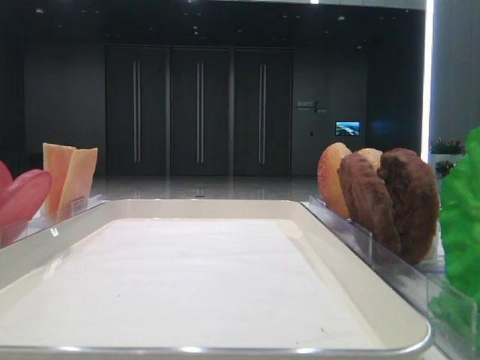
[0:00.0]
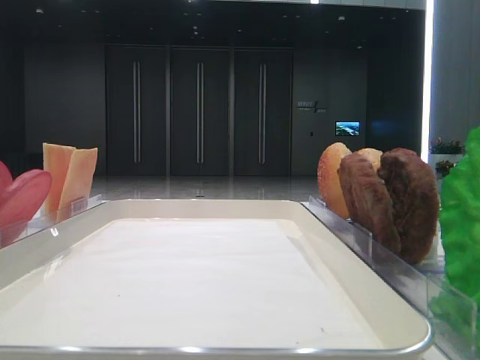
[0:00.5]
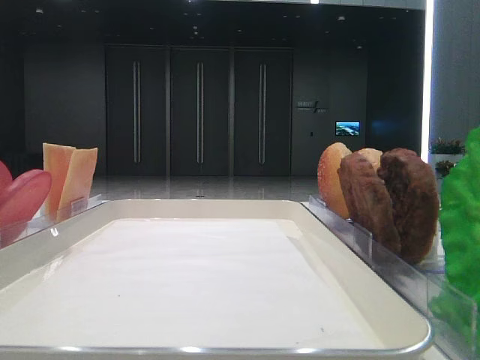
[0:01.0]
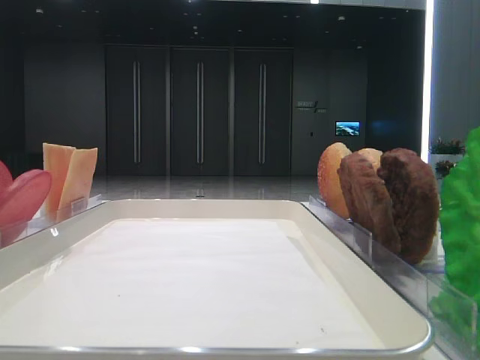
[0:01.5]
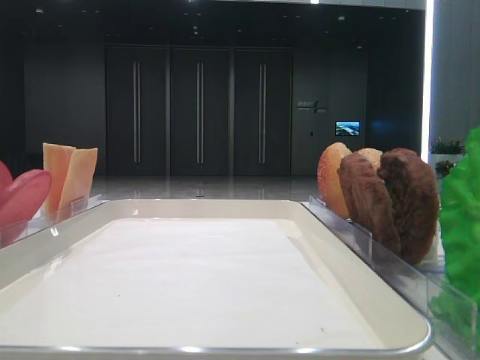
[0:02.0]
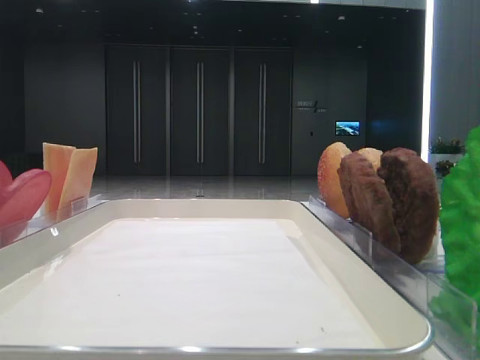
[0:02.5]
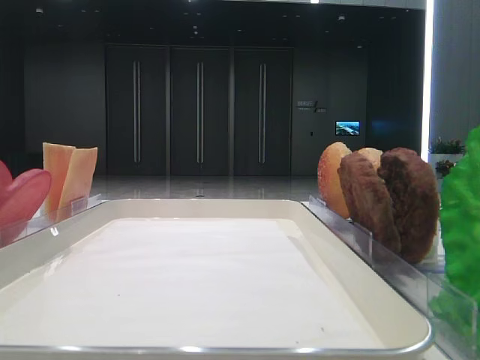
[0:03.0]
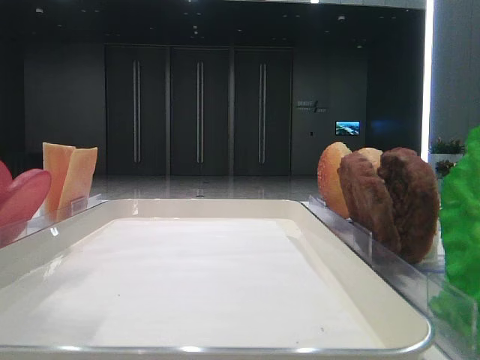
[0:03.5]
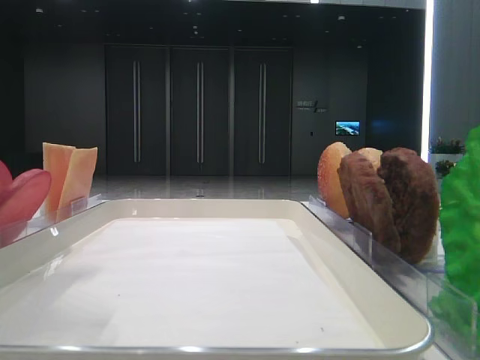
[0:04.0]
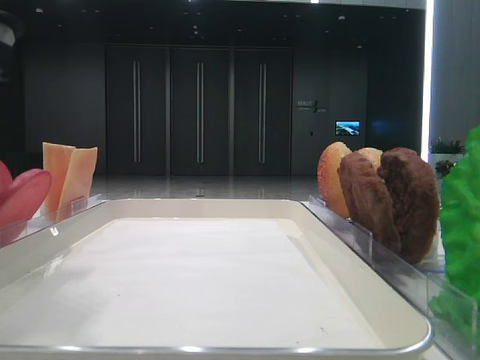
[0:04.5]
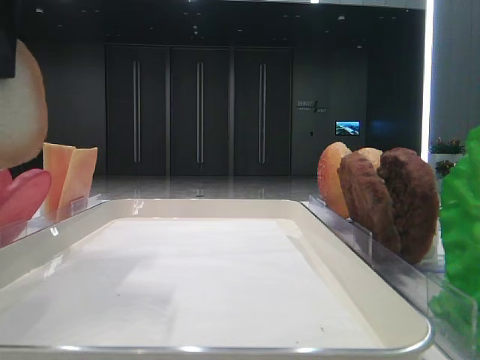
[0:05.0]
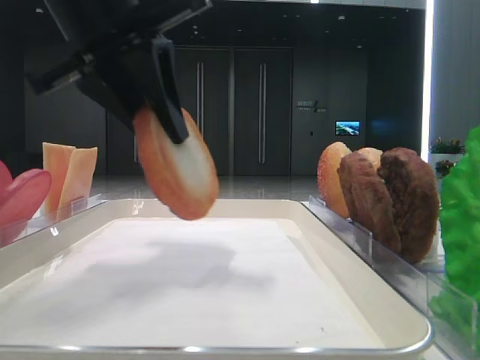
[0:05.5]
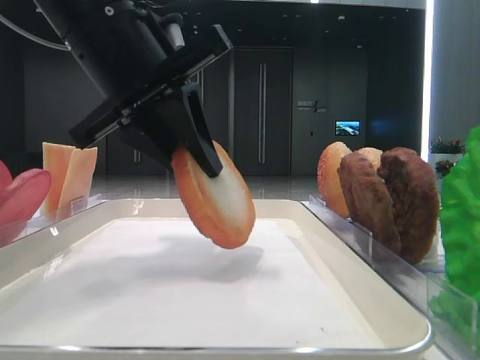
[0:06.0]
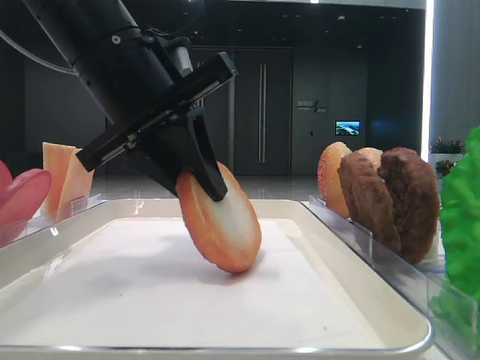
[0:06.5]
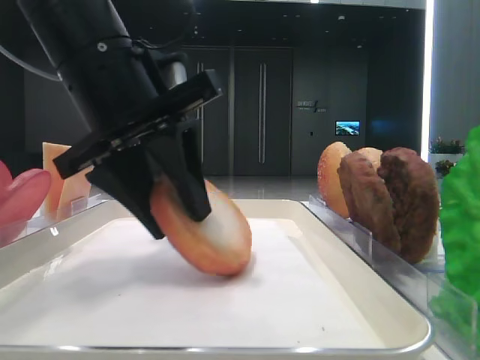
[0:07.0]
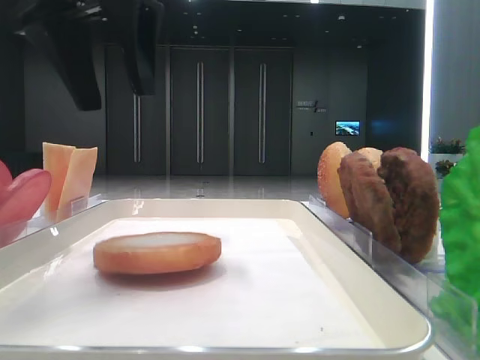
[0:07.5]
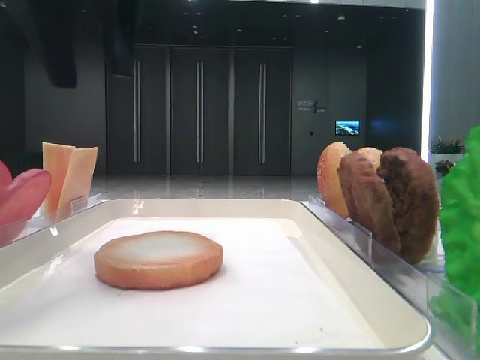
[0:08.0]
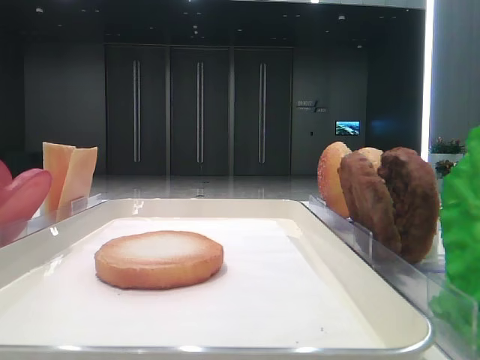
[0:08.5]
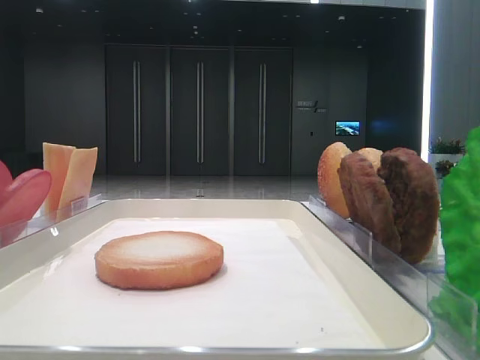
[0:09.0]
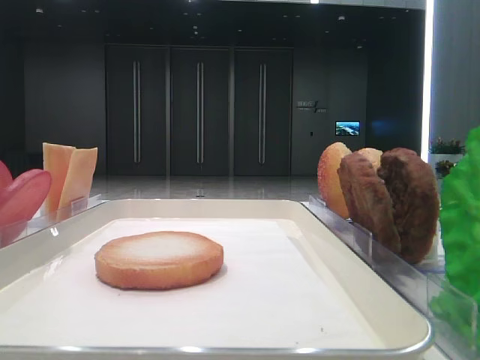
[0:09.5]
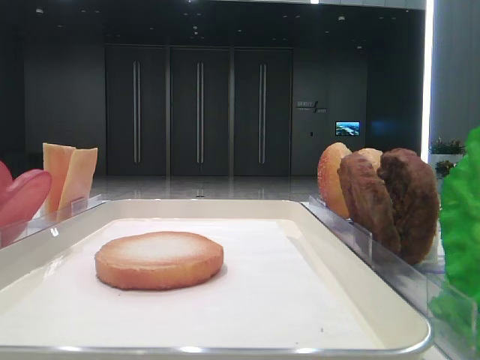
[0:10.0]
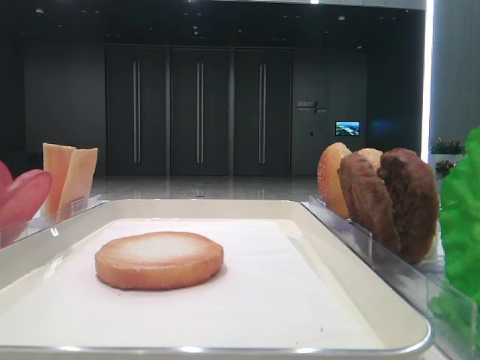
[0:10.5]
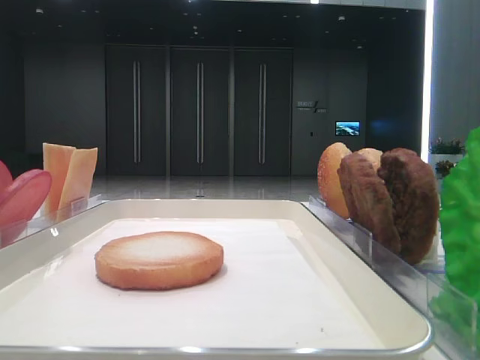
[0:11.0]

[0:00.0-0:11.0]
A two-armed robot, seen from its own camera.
Step, 0:00.0 to 0:04.5: Pick up the bottom bread with the left hand.
Step, 0:05.0 to 0:07.0: Place the bread on the tray with the left hand.
0:02.0 to 0:03.5: The left gripper shifts approximately 20 cm forward and to the right.
0:03.5 to 0:05.5: The left gripper heads to the right and forward, covering roughly 15 cm, and closes.
0:05.5 to 0:07.5: The left gripper heads upward, covering about 5 cm, and opens.
0:07.5 to 0:09.0: The left gripper goes roughly 25 cm to the left and backward.

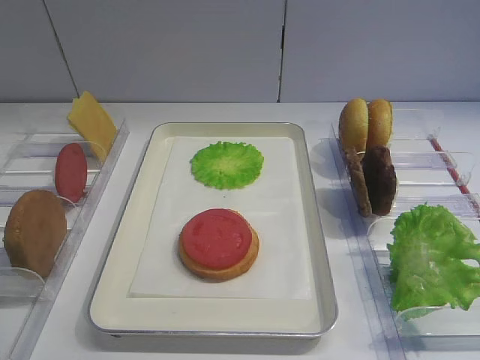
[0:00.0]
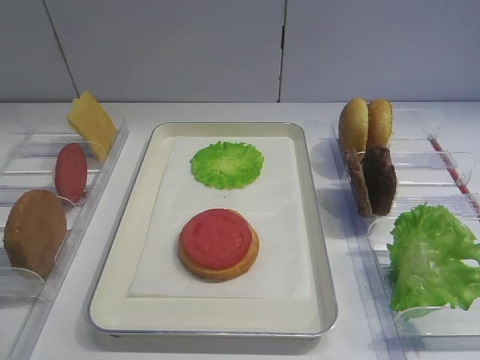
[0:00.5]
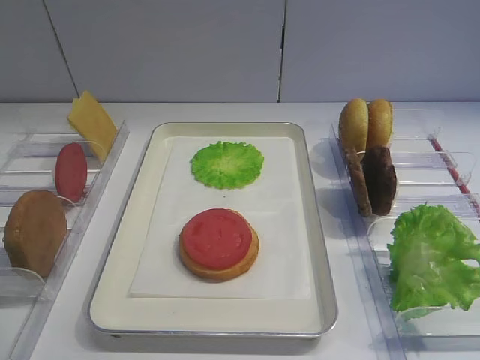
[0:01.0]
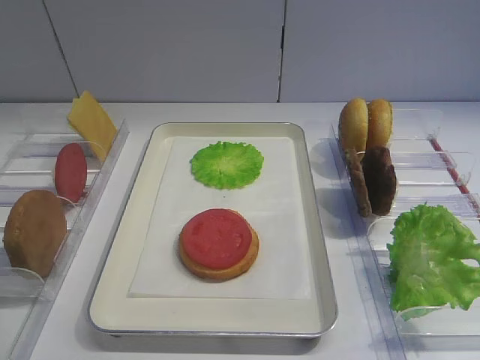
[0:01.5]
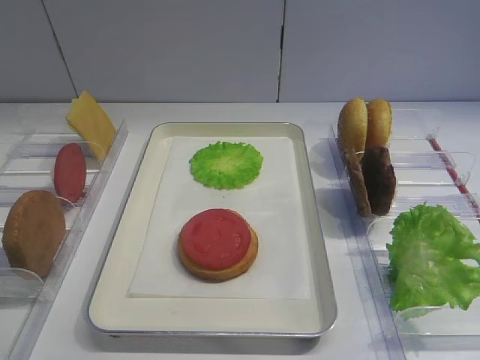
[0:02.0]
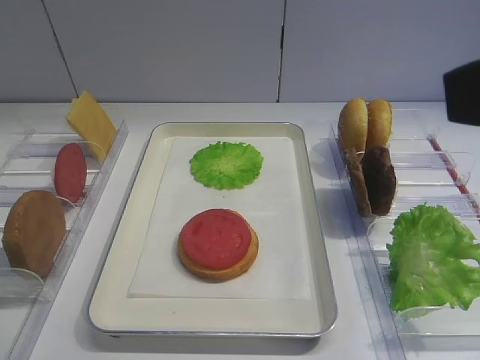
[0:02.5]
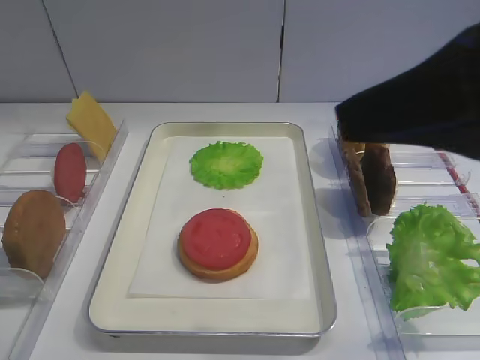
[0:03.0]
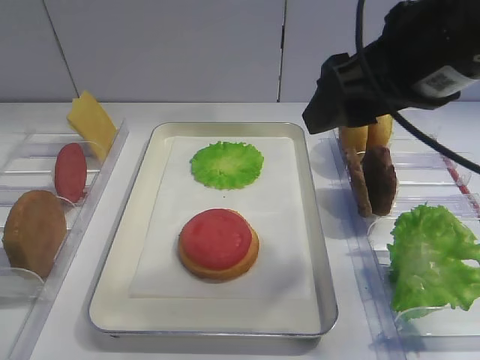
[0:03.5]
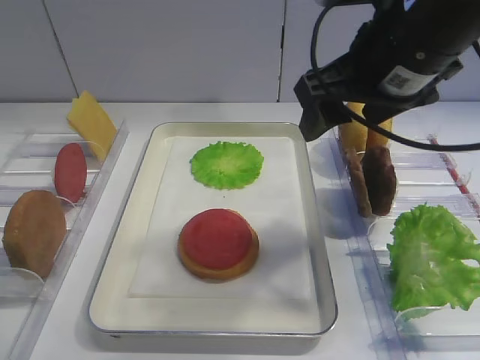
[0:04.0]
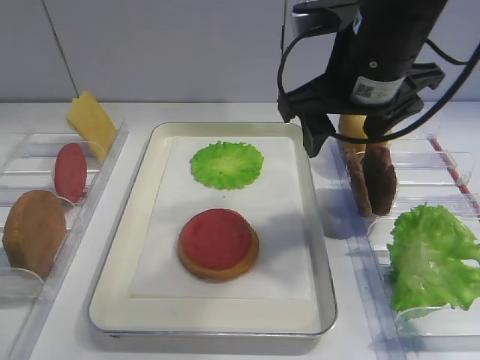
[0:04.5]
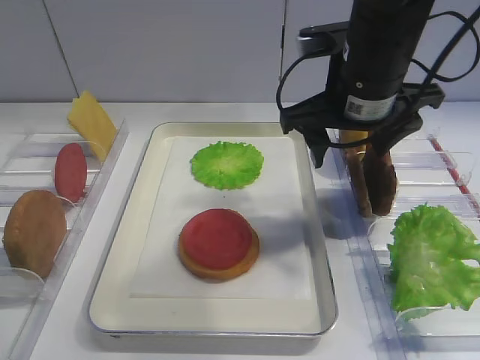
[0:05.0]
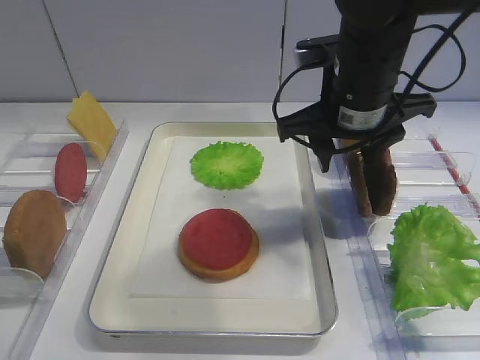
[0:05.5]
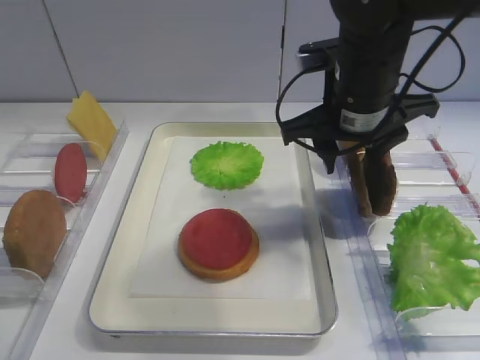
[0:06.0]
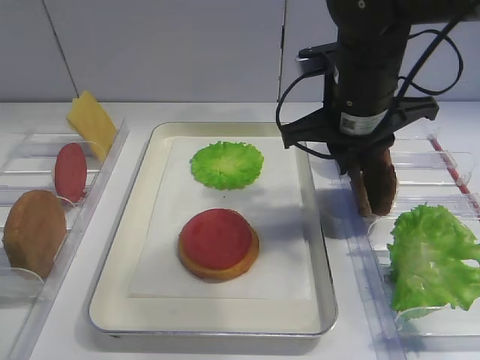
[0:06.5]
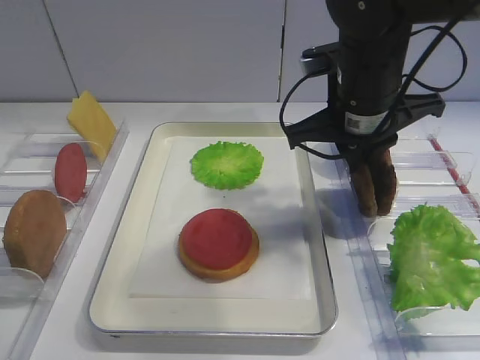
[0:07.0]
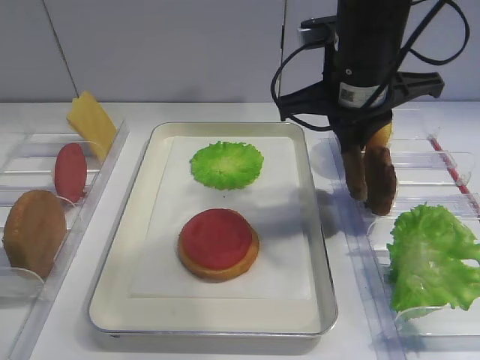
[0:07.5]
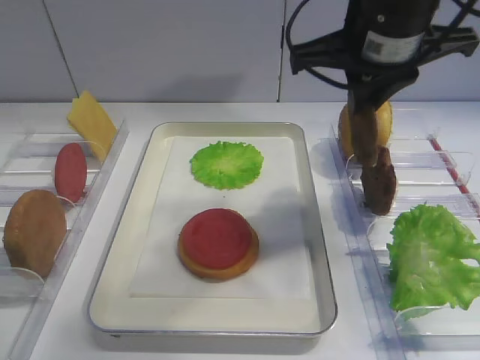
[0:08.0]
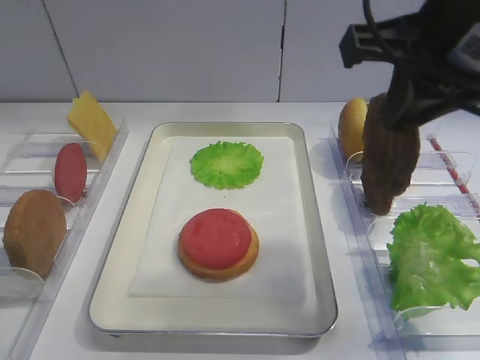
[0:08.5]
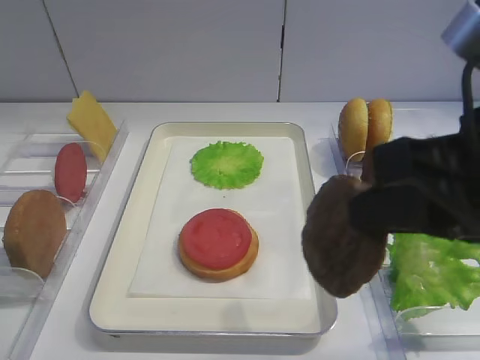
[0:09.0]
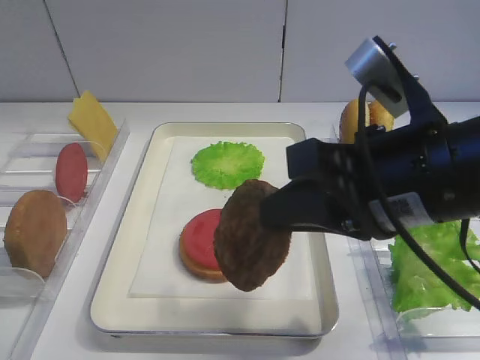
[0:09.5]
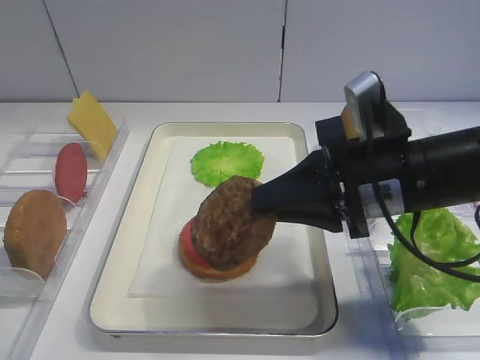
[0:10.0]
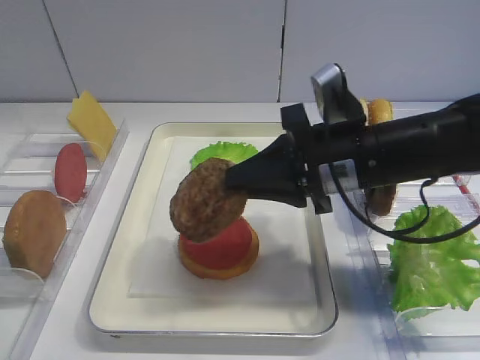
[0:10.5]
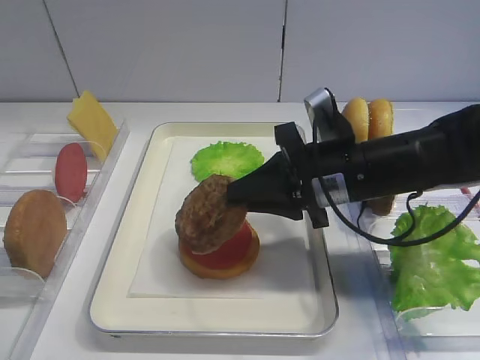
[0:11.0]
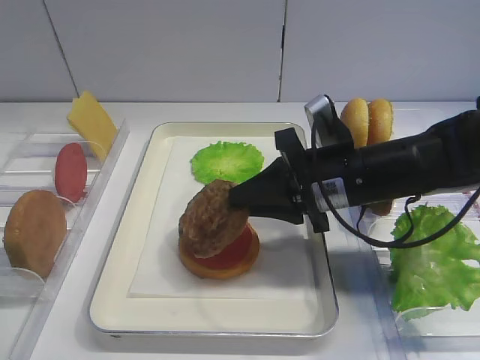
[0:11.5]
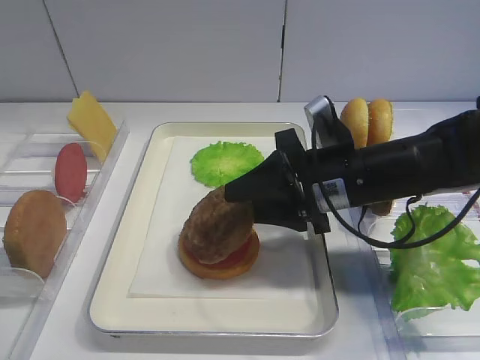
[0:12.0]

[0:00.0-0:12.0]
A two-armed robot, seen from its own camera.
Step, 0:00.0 to 0:07.5: Pick up the cutlet with the right gripper.
0:02.0 to 0:04.0: The right gripper is displaced forward by approximately 20 cm.
0:04.0 to 0:06.0: The right gripper is displaced downward and forward by about 10 cm.
0:06.0 to 0:08.0: The right gripper travels upward by some 10 cm, and closes up.
0:08.0 to 0:10.0: The right gripper travels downward and backward by about 15 cm.
0:10.0 to 0:12.0: The right gripper shifts about 5 cm forward, and opens.

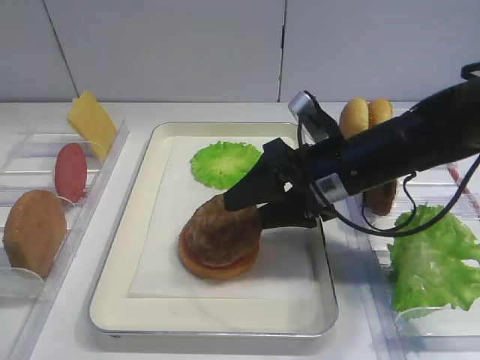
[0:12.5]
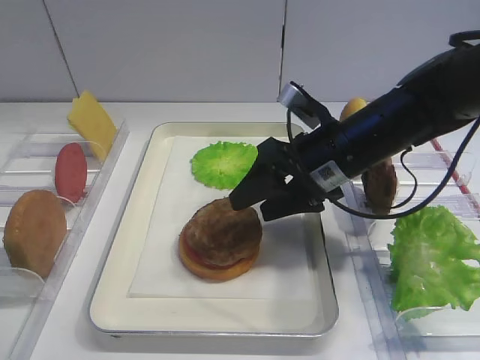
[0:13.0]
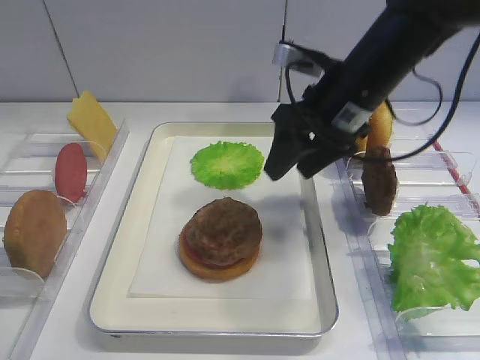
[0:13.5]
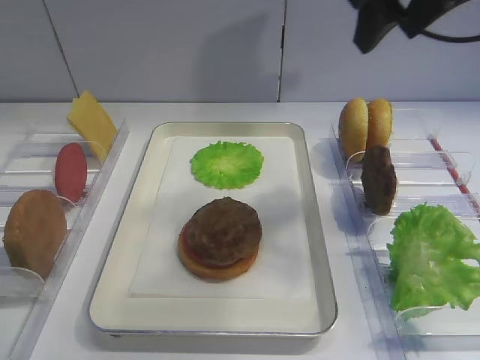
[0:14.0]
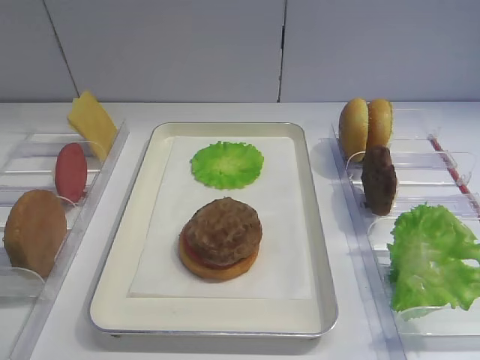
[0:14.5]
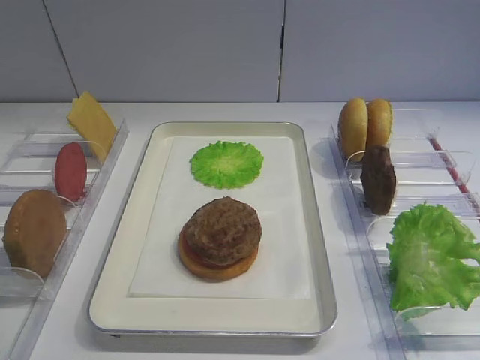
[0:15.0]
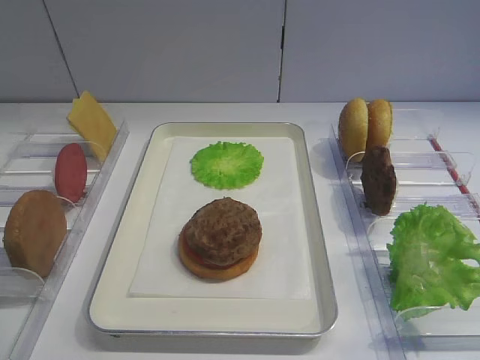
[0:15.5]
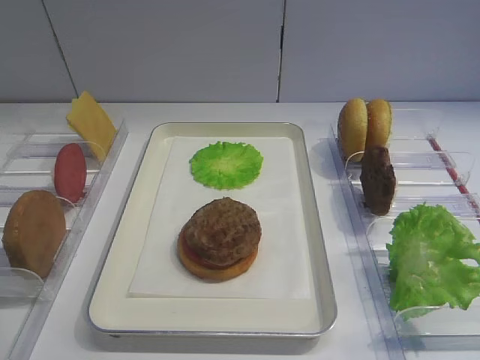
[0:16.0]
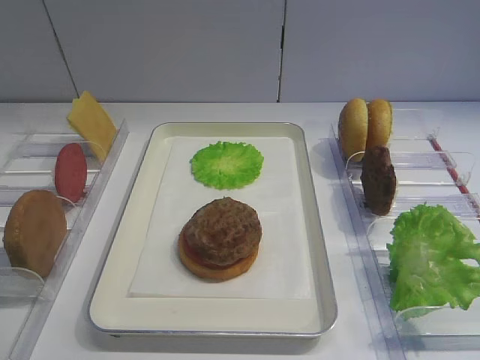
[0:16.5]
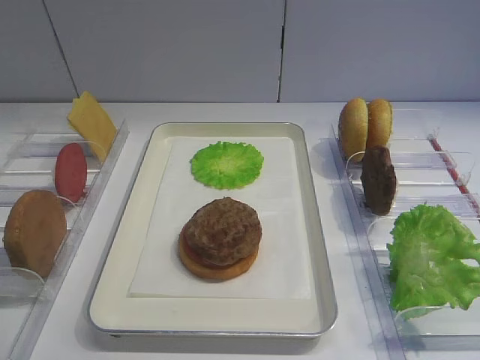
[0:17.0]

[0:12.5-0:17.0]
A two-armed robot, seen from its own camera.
0:12.5 to 0:14.5: The right gripper shifts some 35 cm backward, upward and to the right.
0:14.5 to 0:17.0: The right gripper shifts about 15 cm downward and backward.
